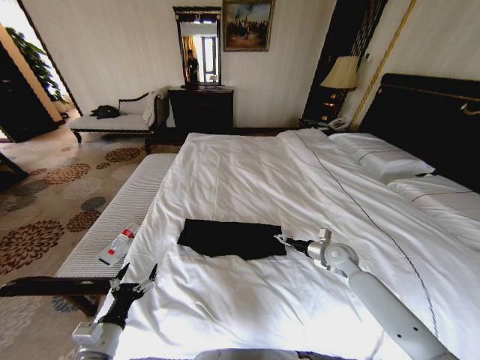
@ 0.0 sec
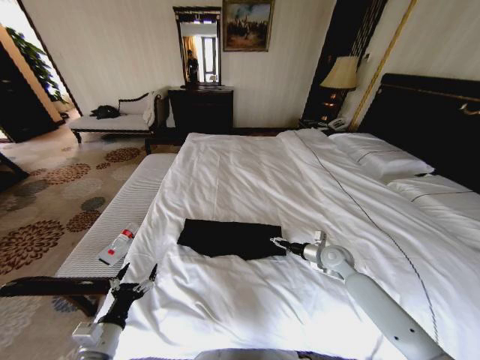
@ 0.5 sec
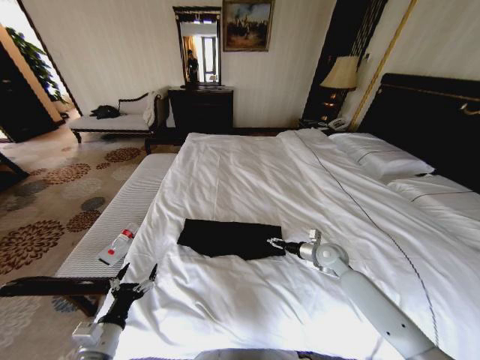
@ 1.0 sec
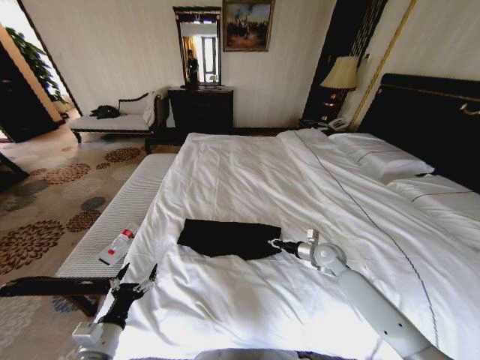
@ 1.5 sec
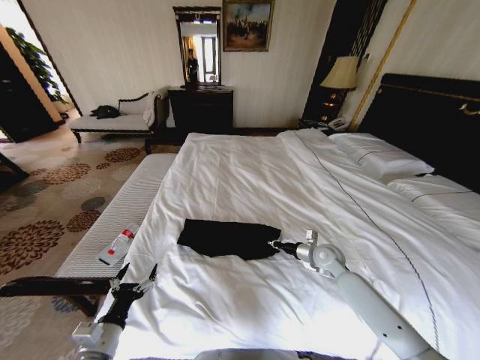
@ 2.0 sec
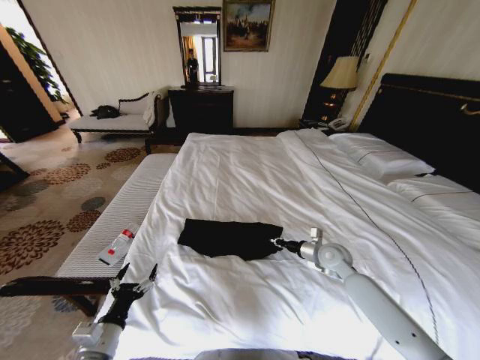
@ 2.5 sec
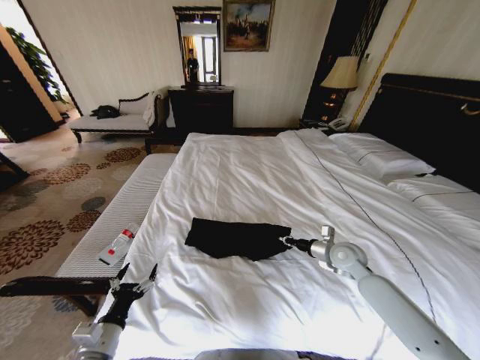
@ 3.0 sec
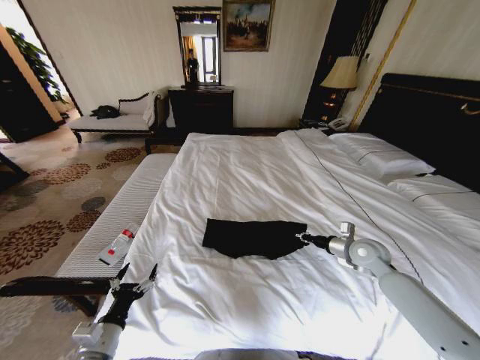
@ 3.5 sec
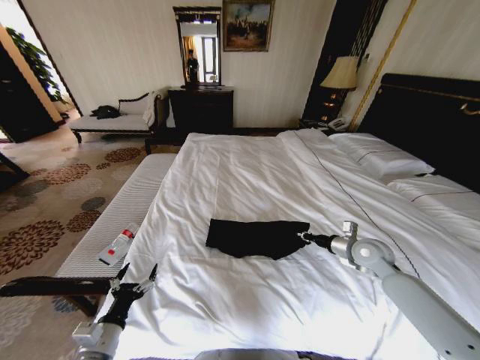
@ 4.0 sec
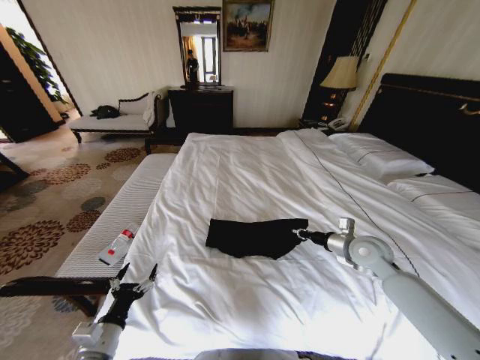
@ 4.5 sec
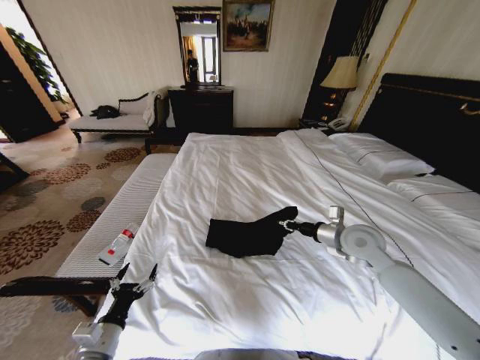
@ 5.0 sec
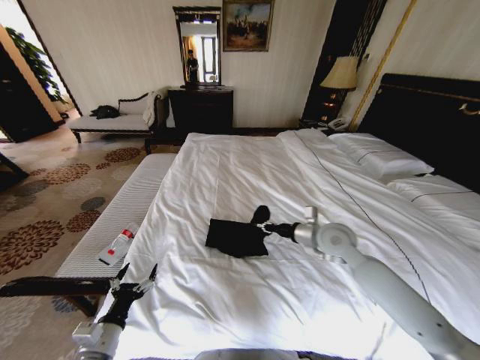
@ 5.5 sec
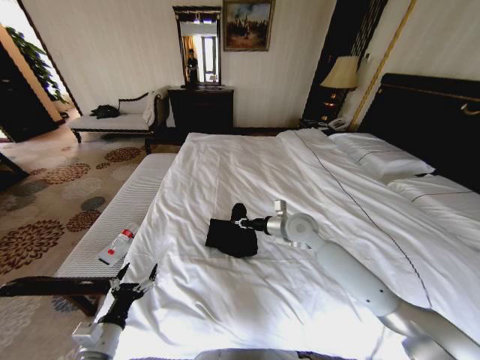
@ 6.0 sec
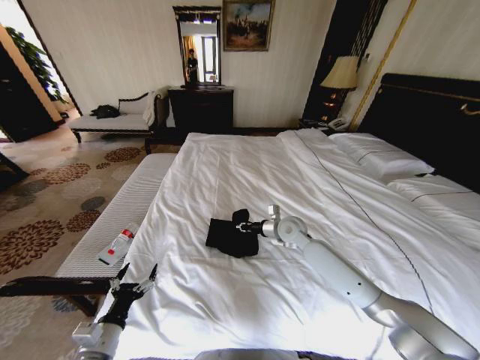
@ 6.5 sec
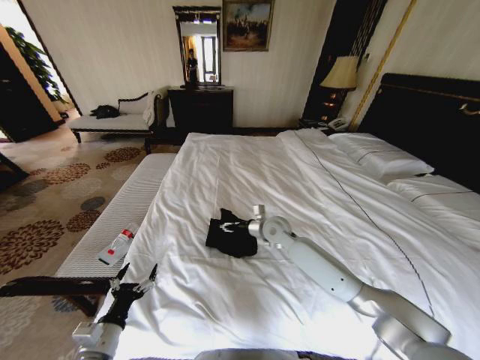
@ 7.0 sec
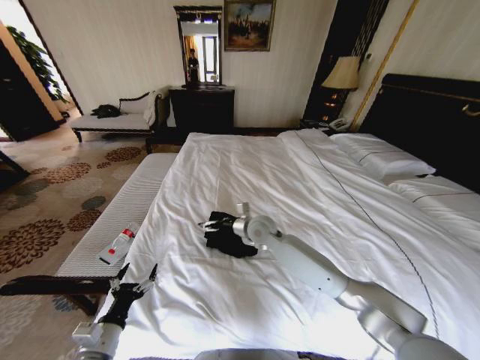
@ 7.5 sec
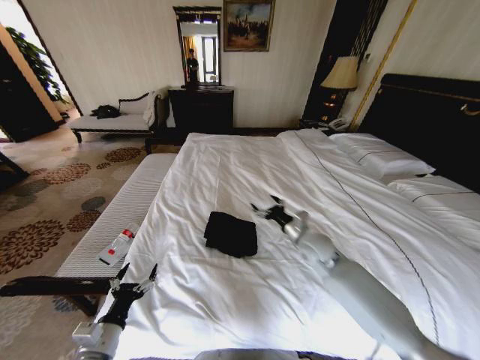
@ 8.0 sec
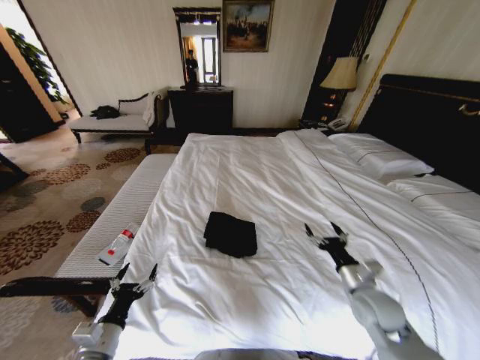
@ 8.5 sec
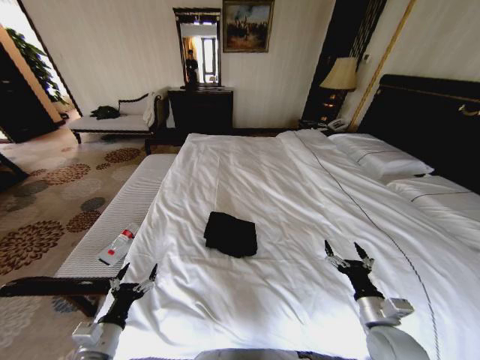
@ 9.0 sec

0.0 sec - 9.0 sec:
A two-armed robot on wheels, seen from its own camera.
Task of the whole recording: Fold the clothes on the bed.
0.0 sec - 2.0 sec: The right gripper closes up.
2.0 sec - 4.5 sec: The right gripper goes approximately 10 cm upward and to the right.
4.5 sec - 7.0 sec: The right gripper heads to the left and forward, covering about 25 cm.
7.0 sec - 9.0 sec: The right gripper shifts about 35 cm backward and to the right, and opens up.
